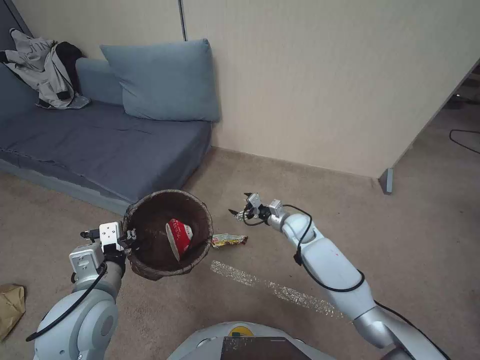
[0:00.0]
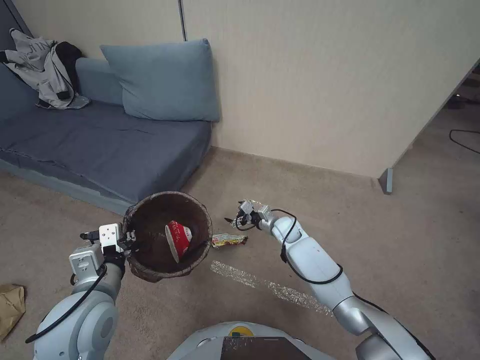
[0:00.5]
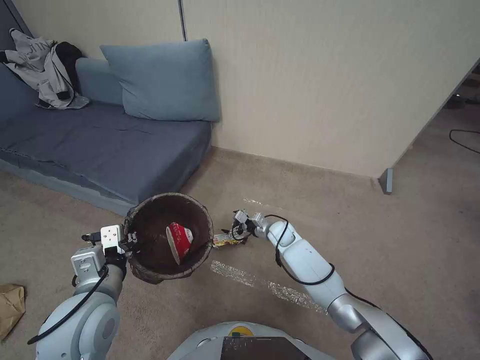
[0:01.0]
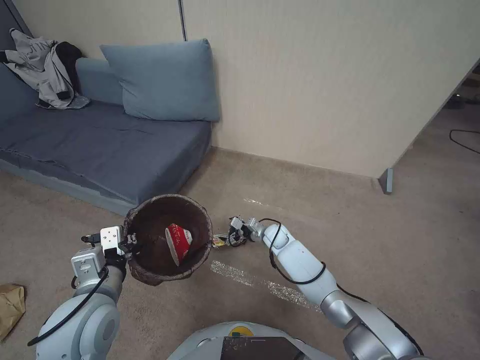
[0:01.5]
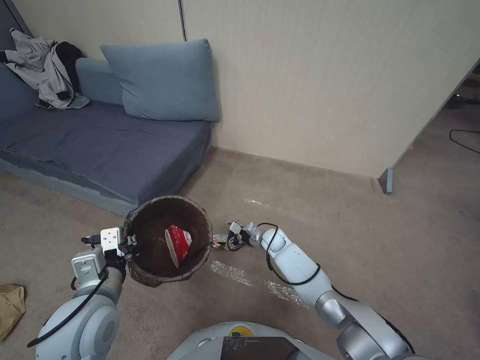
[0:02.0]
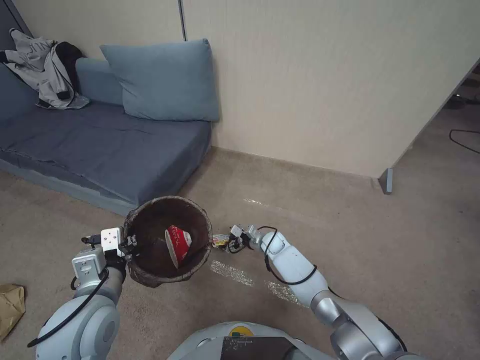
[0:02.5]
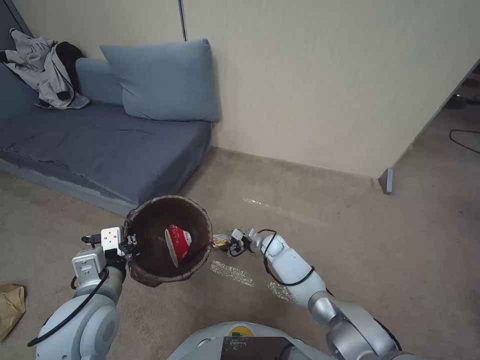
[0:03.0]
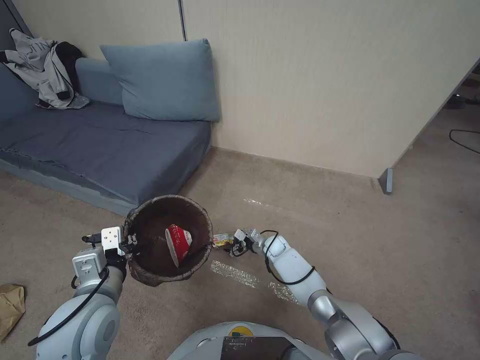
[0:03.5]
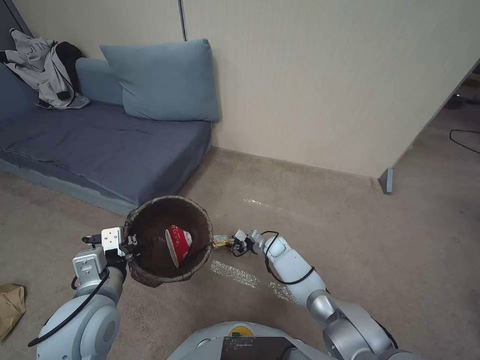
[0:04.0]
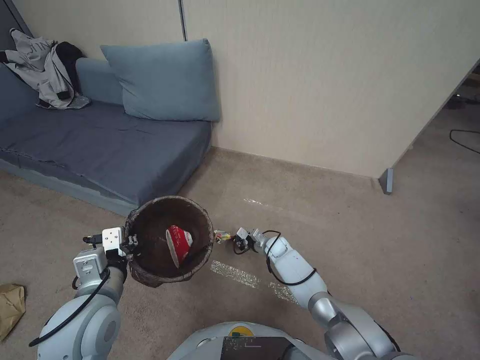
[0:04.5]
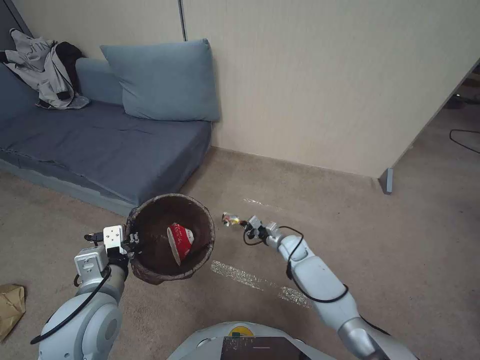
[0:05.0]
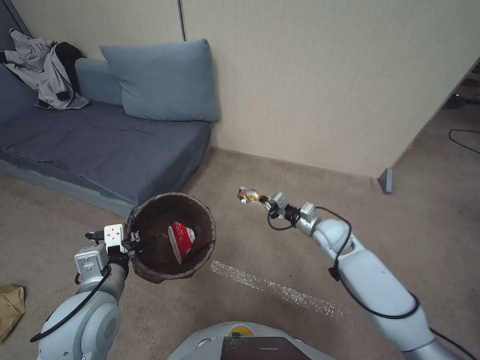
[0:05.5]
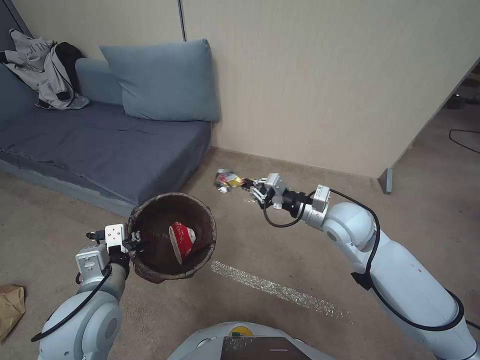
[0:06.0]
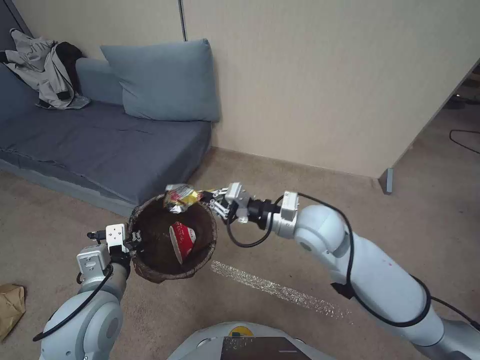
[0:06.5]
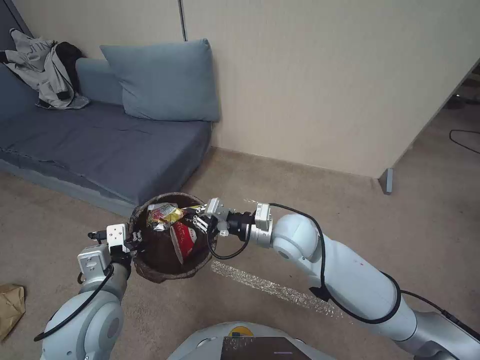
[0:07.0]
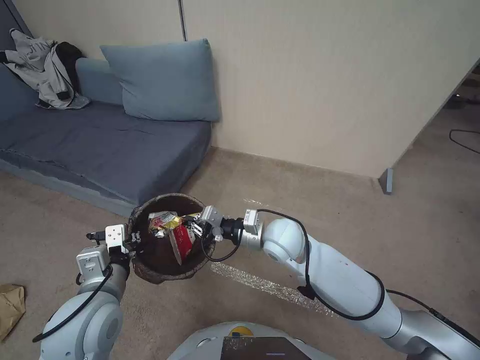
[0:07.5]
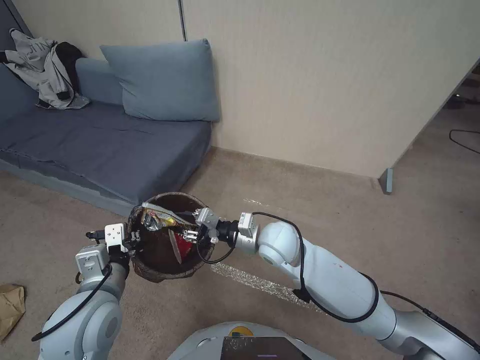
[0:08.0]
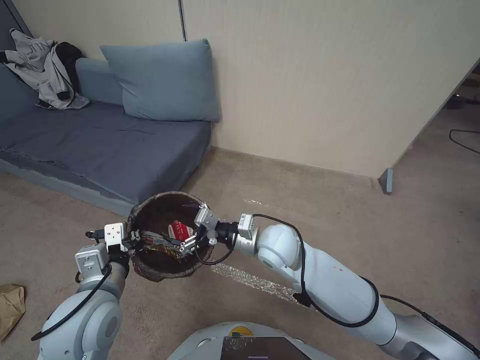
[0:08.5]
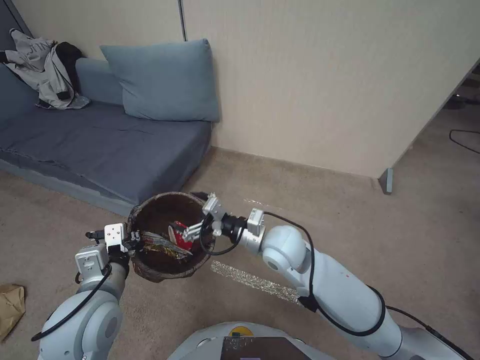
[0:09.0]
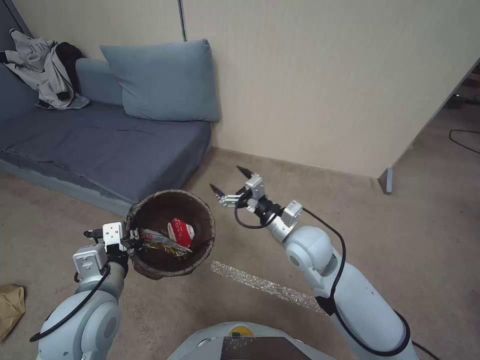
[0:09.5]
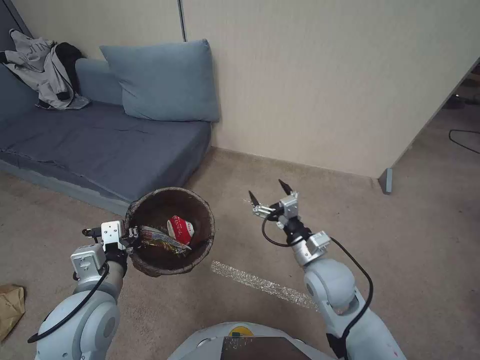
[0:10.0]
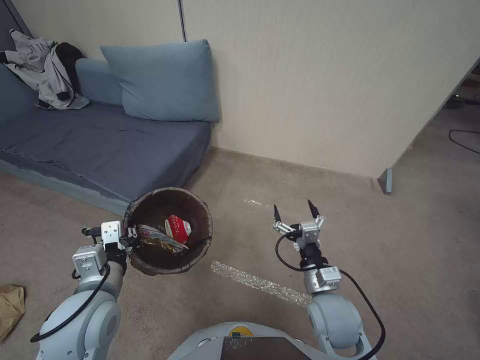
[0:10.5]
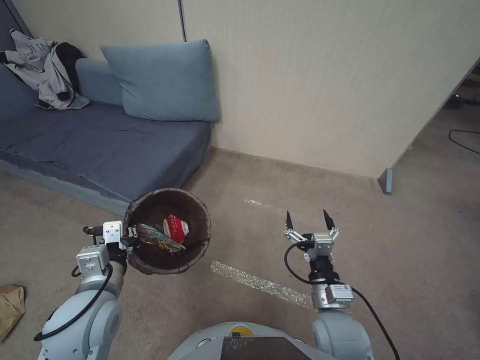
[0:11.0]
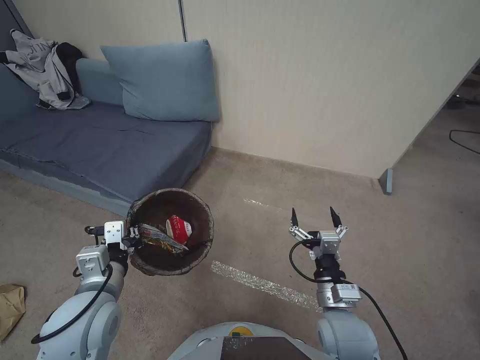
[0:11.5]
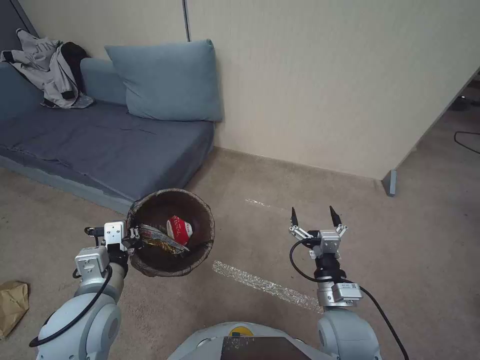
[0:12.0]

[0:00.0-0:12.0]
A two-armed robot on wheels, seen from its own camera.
Task of the whole recording: Pick up the trash bin, then pick up the garbage from the floor and place it into the trash bin.
0:00.0 to 0:02.0: The right gripper is displaced downward and to the left by approximately 15 cm.
0:02.0 to 0:04.0: The right gripper heads downward, covering about 5 cm, and closes its fingers.
0:04.0 to 0:06.0: The right gripper travels upward by roughly 35 cm, and closes.
0:06.0 to 0:08.0: The right gripper moves to the left, some 15 cm.
0:08.0 to 0:10.0: The right gripper heads to the right and backward, covering about 10 cm, and opens.
0:10.0 to 0:12.0: The right gripper moves backward, about 10 cm.

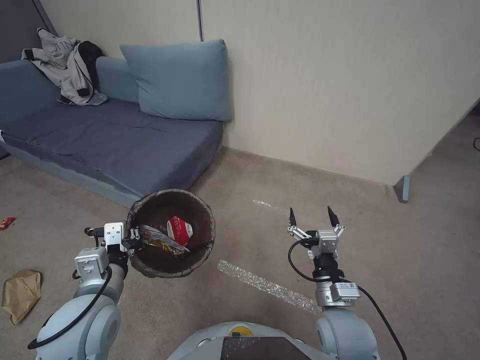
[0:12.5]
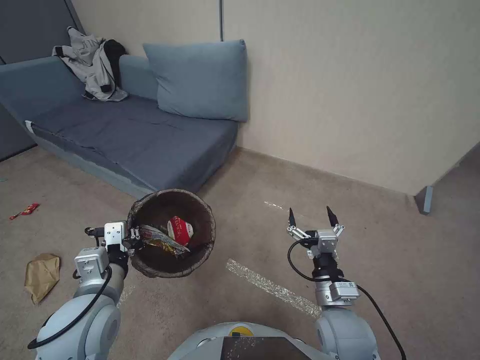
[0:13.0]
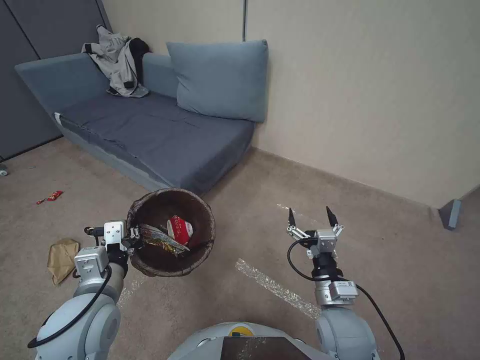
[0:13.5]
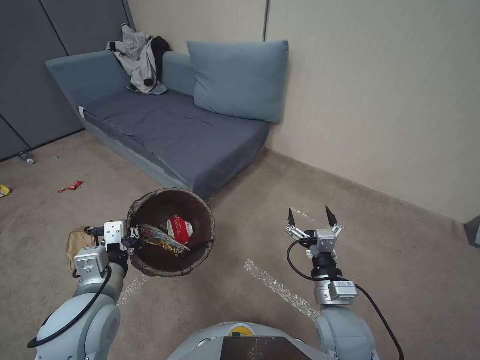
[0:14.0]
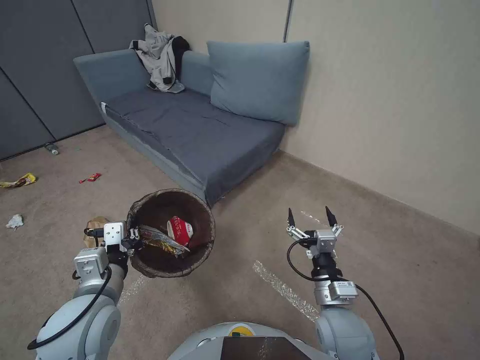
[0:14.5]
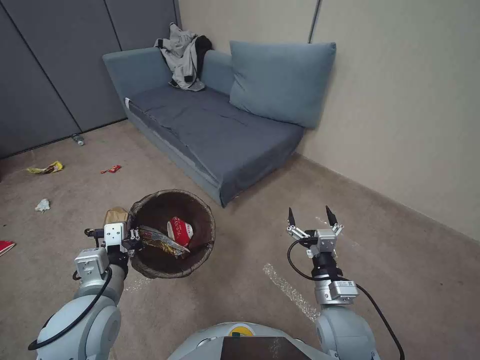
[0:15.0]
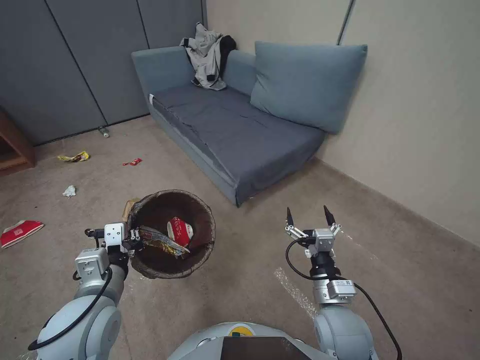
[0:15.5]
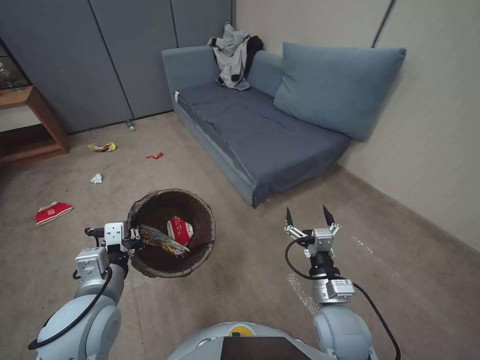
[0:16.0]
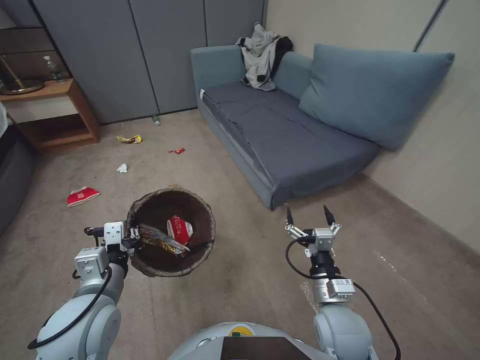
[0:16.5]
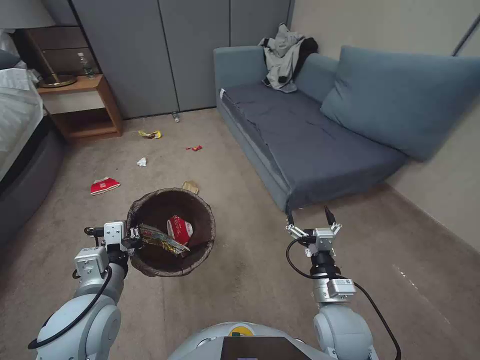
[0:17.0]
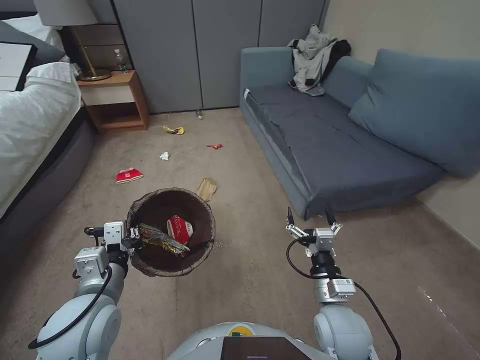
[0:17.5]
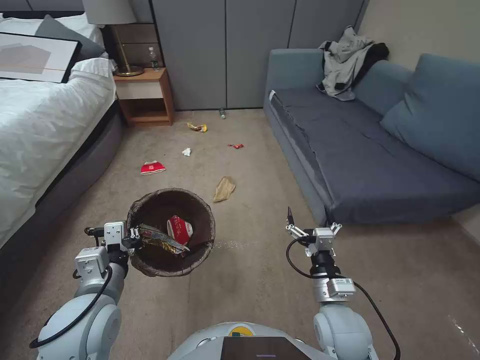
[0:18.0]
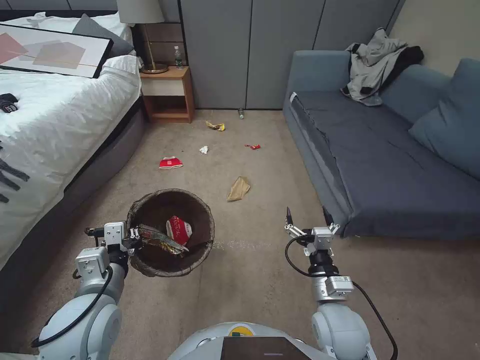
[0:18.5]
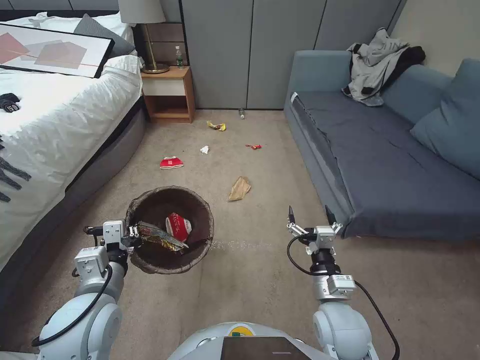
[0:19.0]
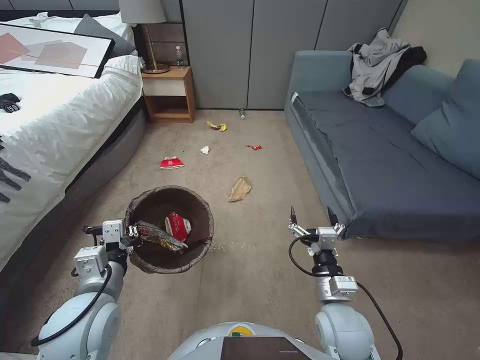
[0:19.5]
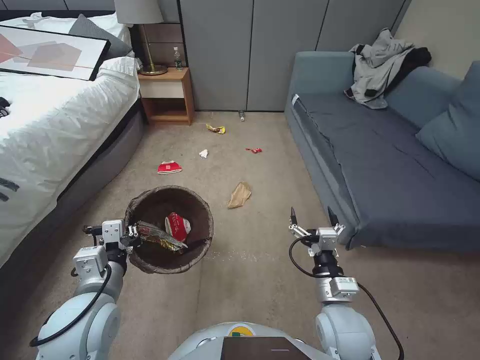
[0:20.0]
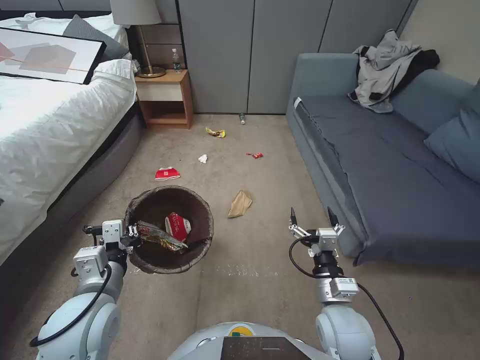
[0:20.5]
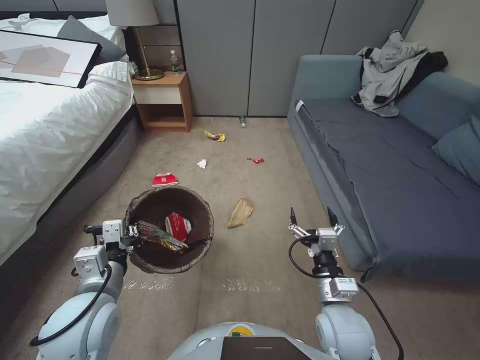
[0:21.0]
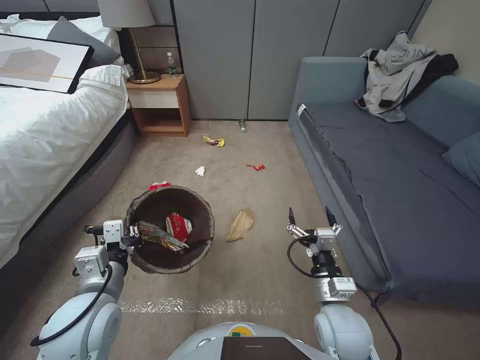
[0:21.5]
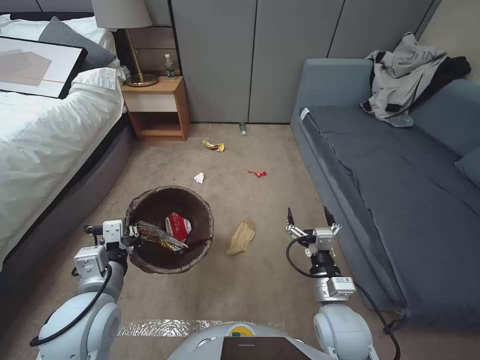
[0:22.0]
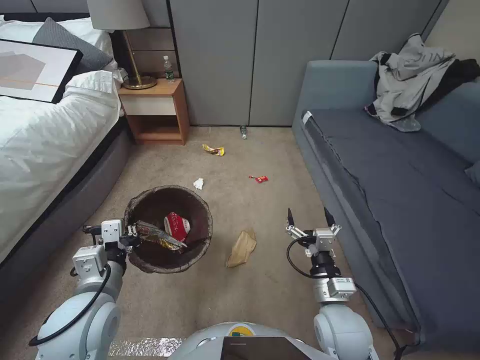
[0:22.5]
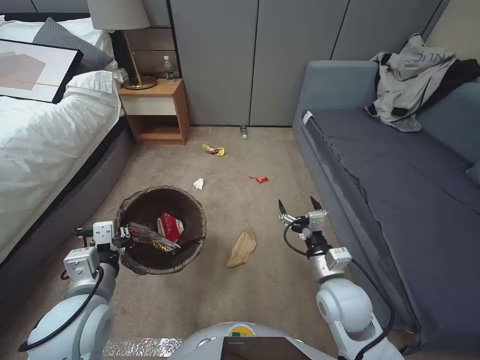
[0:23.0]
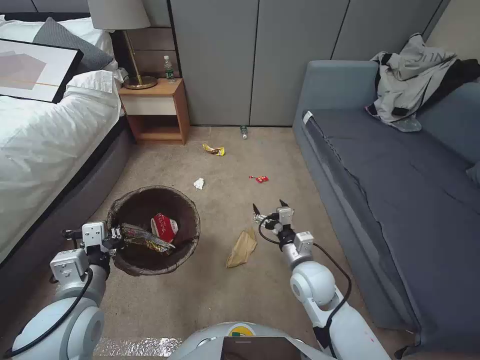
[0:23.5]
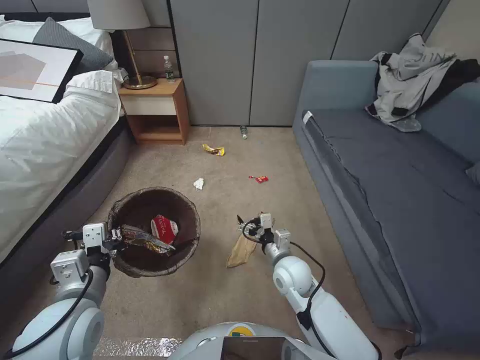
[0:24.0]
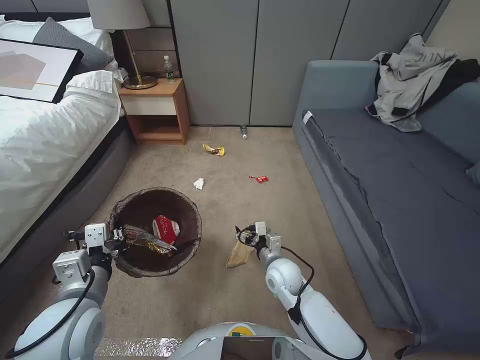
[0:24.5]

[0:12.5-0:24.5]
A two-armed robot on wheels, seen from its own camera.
Task of the whole recording: Pick up the trash bin, then pick up the garbage from the floor and place it into the trash bin.
0:22.5 to 0:24.5: The right gripper travels forward, downward and to the left by about 15 cm.

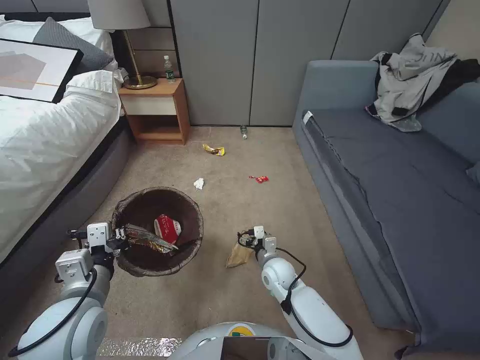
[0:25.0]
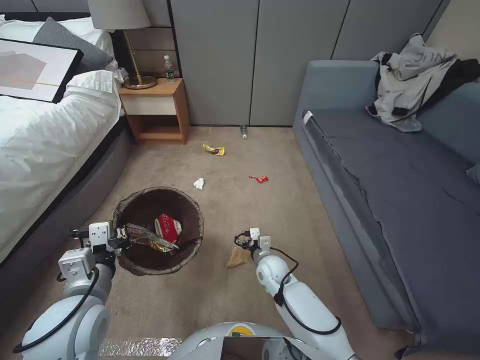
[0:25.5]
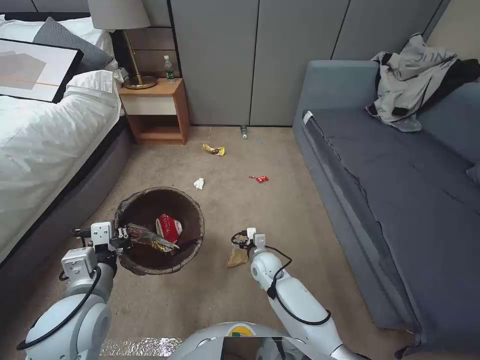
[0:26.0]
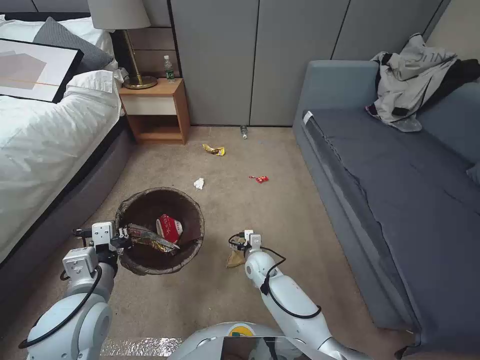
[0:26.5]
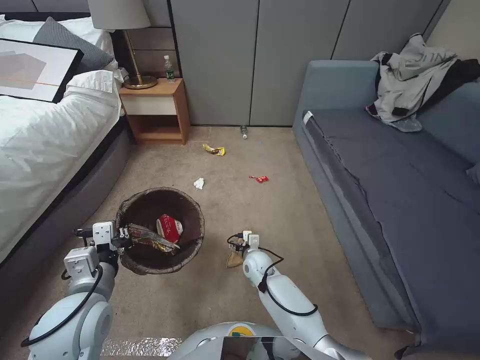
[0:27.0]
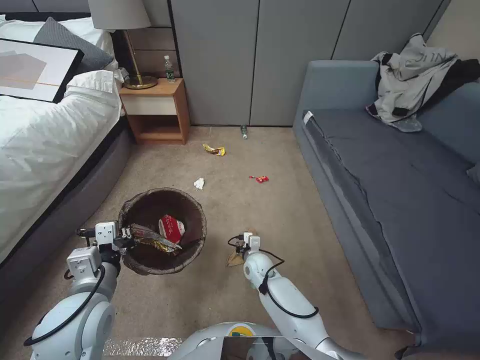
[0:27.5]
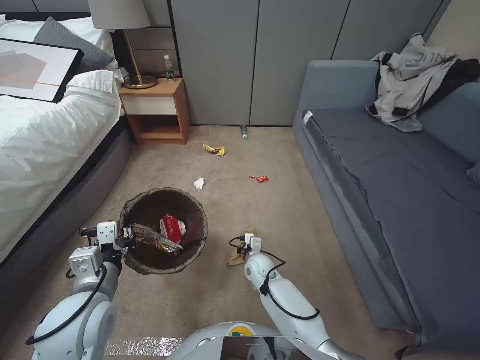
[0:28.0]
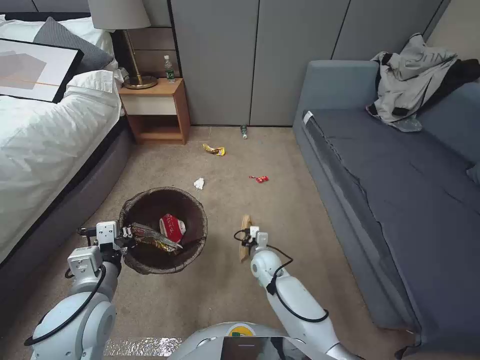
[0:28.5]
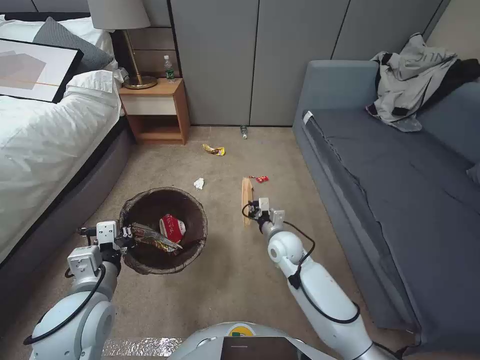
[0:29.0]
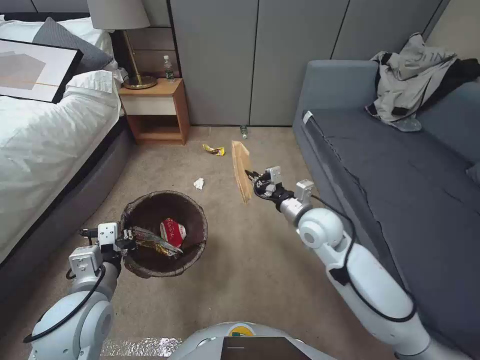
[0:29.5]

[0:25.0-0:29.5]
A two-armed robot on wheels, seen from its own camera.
Task of the whole recording: Pick up the trash bin, then pick up the garbage from the floor and place it into the trash bin.
0:25.0 to 0:27.0: The right gripper shifts about 5 cm to the left.
0:27.0 to 0:29.5: The right gripper goes about 25 cm upward and to the right, and closes.
